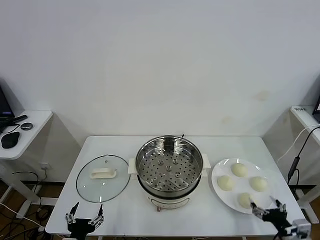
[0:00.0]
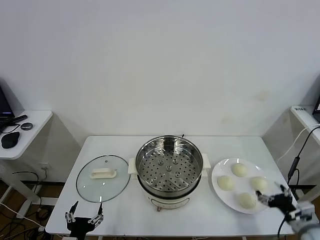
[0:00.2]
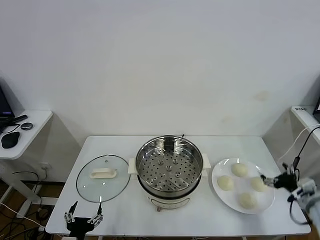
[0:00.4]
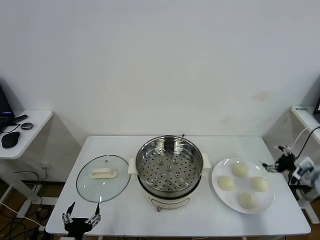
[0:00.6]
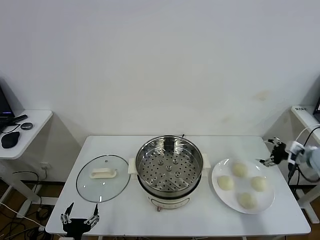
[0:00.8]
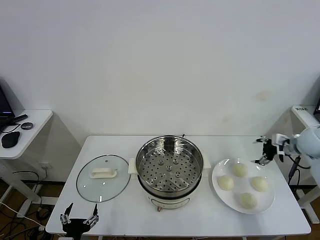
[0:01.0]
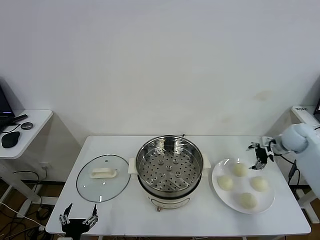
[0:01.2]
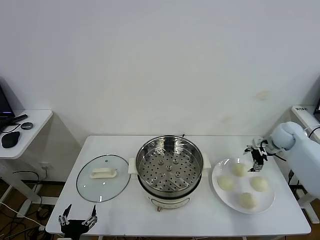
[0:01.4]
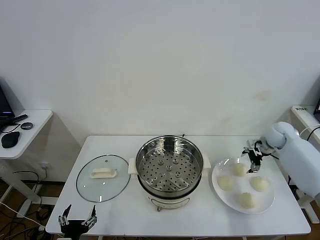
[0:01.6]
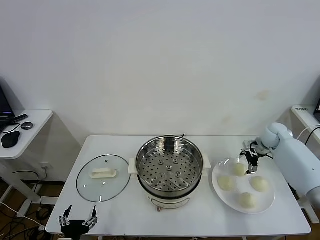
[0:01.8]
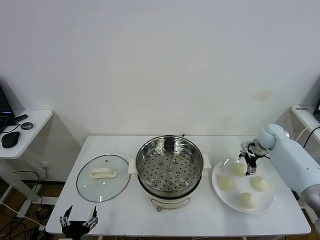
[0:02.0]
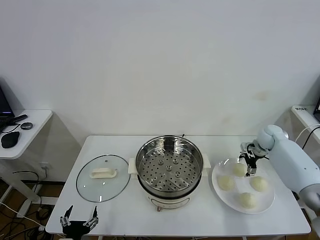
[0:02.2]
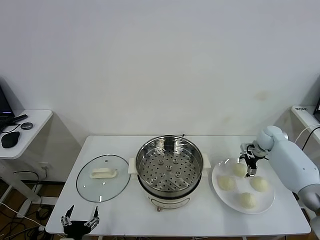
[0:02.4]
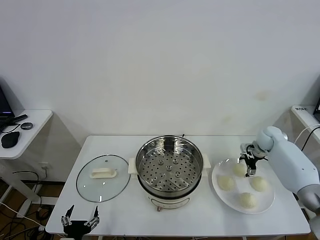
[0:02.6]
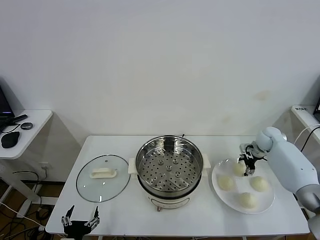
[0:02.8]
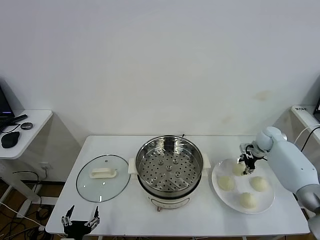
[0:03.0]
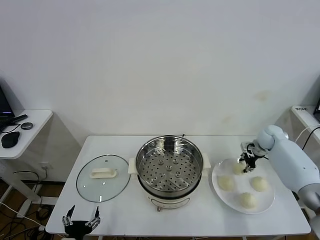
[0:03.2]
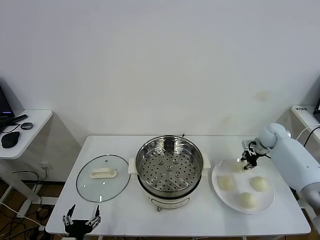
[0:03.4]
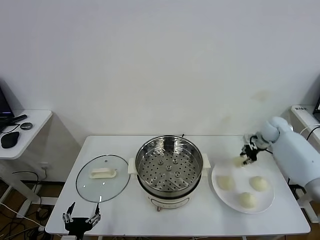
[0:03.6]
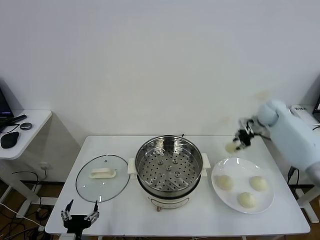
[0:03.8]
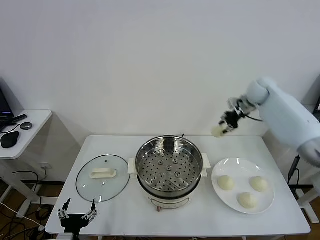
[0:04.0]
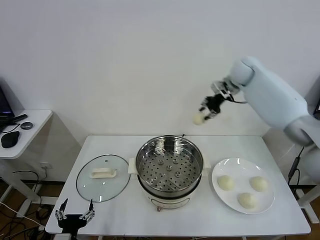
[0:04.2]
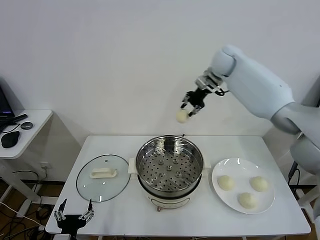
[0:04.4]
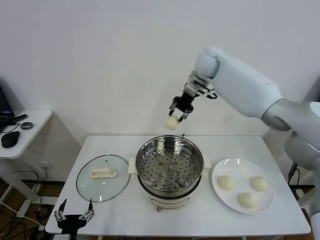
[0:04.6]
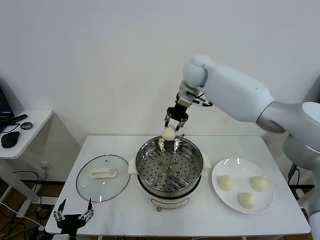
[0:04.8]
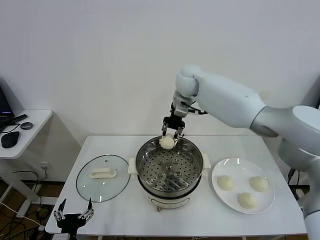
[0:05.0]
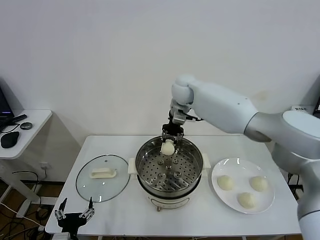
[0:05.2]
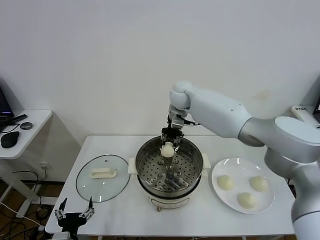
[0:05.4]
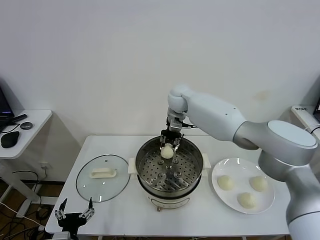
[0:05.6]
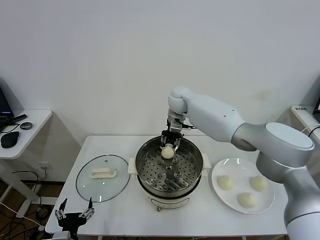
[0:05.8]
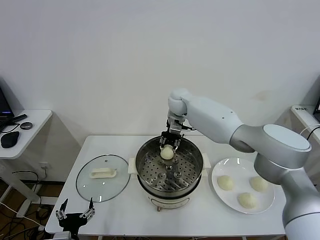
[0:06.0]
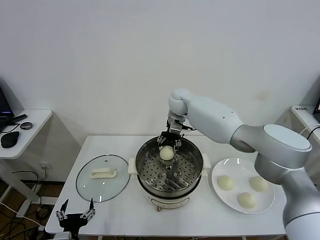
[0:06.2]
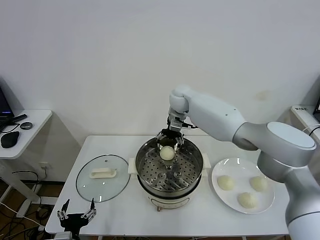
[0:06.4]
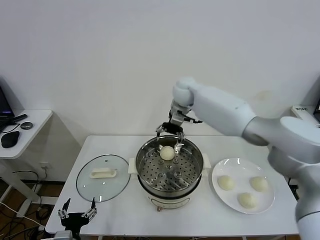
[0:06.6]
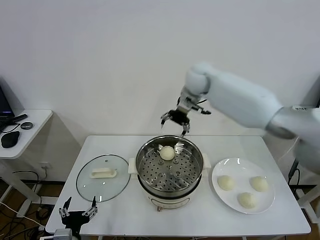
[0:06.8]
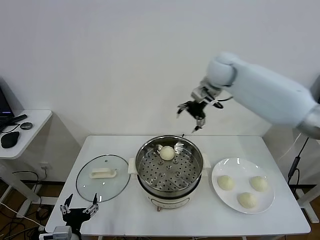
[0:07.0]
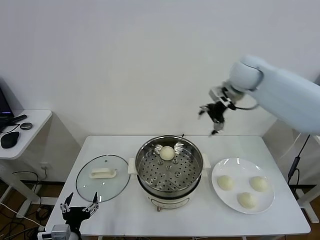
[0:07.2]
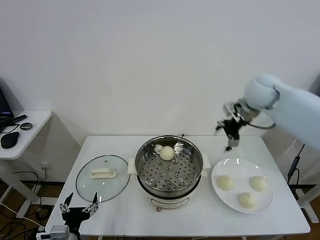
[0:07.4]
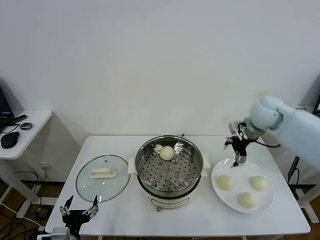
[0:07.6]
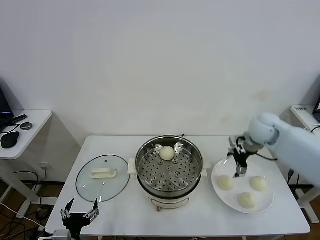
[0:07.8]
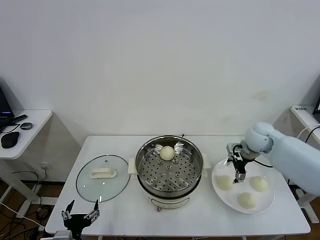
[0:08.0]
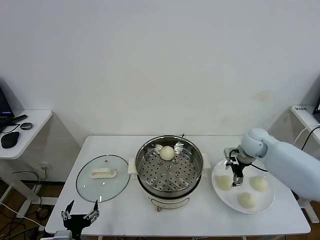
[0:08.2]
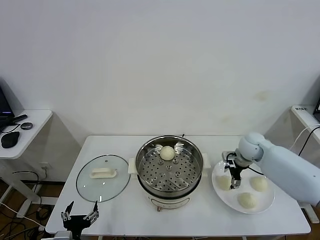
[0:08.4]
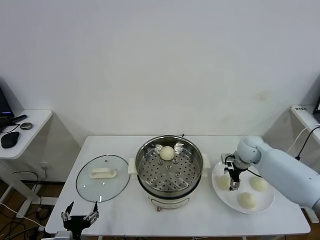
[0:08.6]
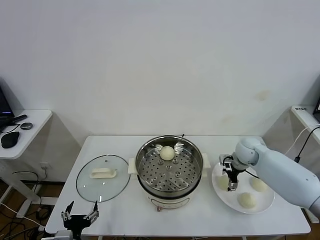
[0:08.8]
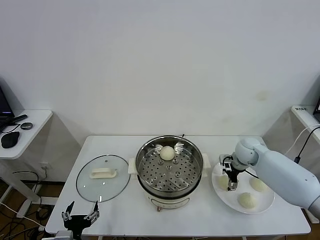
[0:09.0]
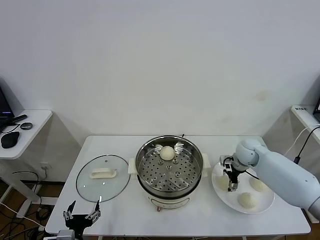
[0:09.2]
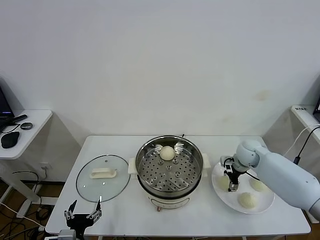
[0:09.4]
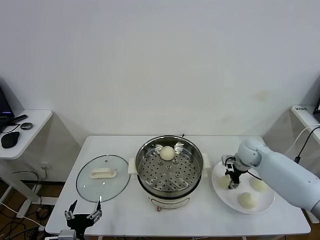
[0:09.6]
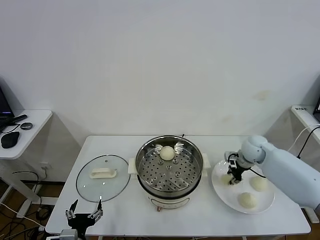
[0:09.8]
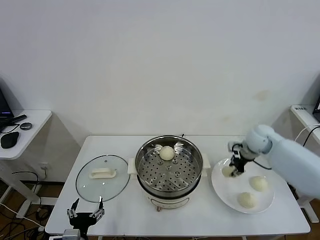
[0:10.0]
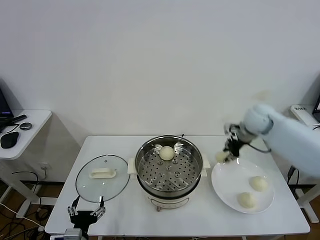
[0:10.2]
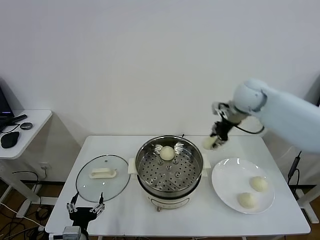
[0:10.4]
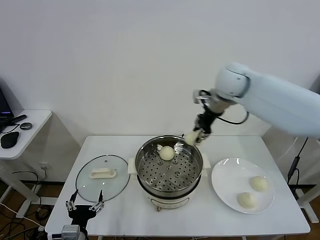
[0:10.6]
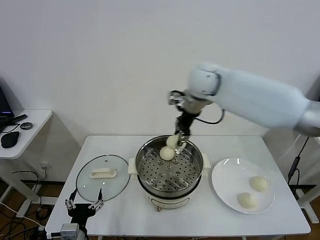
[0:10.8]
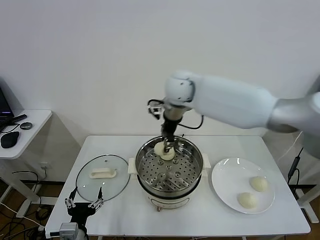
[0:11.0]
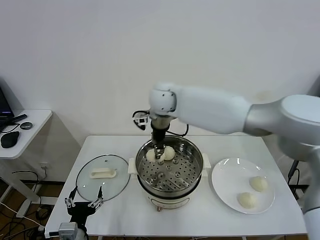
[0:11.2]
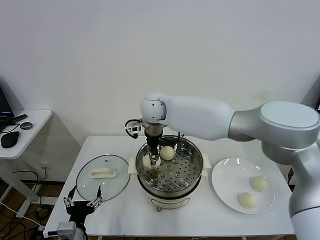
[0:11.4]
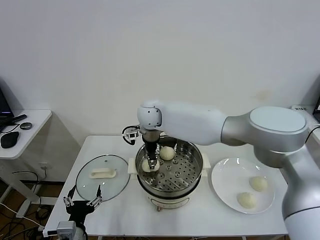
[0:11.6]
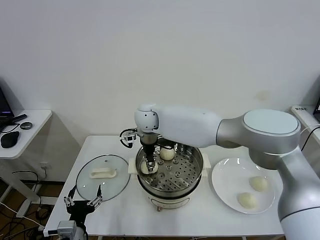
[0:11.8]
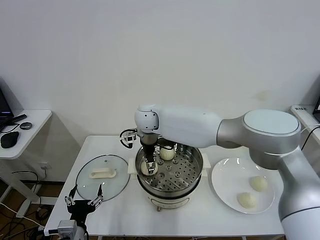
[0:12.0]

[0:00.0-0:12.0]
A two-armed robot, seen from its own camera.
Task of the whole recording: take steamed baozi put them in steamer.
Step, 0:00.0 to 0:02.8: Grasp the baozi in the plate with right gripper.
Step, 0:03.0 to 0:06.4: Place the baozi on the steamer with right gripper.
Step, 0:06.6 to 0:09.6: Grasp the baozi in the plate with right gripper.
0:01.6 to 0:03.0: The right gripper closes up.
0:03.0 to 0:04.4: The right gripper travels upward and to the left by approximately 35 cm, and closes its fingers.
0:04.4 to 0:06.0: The right gripper shifts approximately 20 cm downward and to the left.
0:06.0 to 0:07.6: The right gripper moves to the right and backward, about 30 cm, and opens up.
0:07.6 to 0:09.0: The right gripper is displaced downward by roughly 15 cm.
0:09.0 to 0:10.4: The right gripper heads upward, covering about 25 cm, and closes its fingers.
0:10.4 to 0:12.0: The right gripper shifts about 30 cm to the left, and opens.

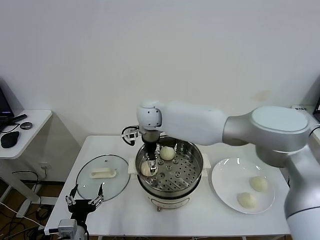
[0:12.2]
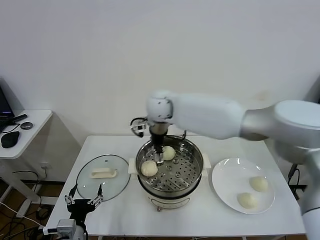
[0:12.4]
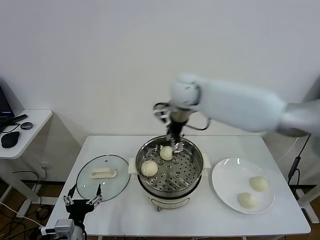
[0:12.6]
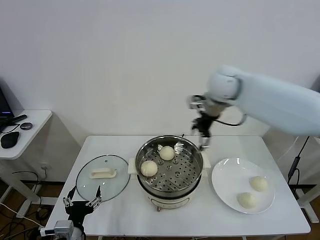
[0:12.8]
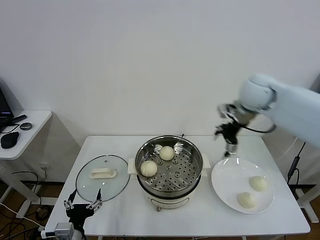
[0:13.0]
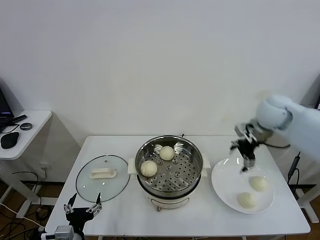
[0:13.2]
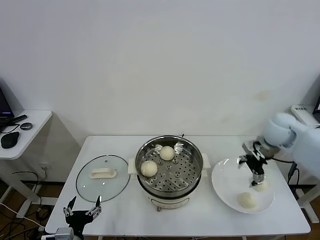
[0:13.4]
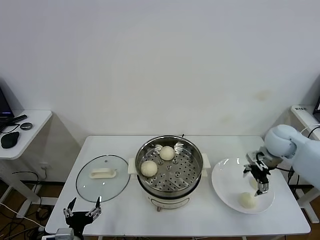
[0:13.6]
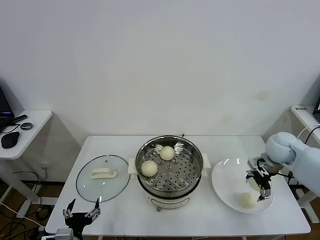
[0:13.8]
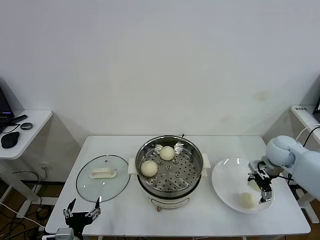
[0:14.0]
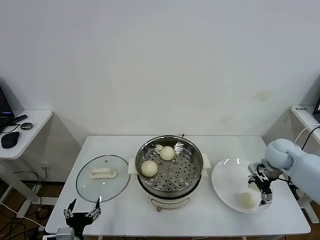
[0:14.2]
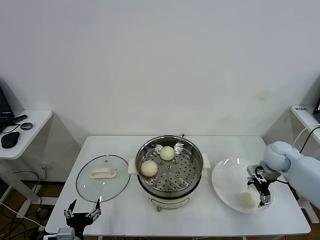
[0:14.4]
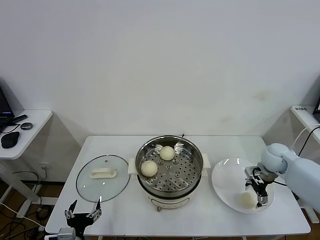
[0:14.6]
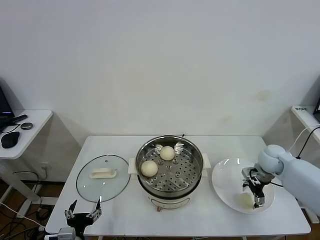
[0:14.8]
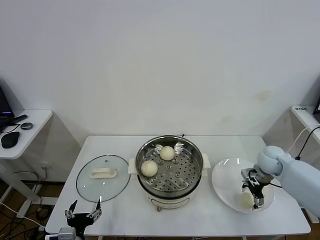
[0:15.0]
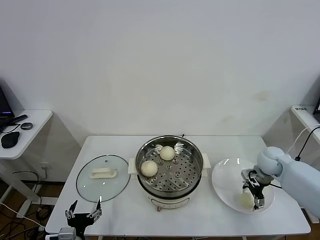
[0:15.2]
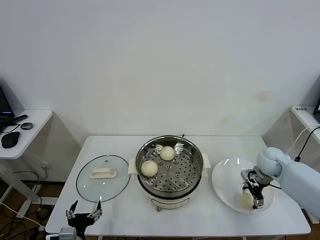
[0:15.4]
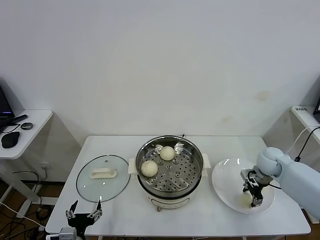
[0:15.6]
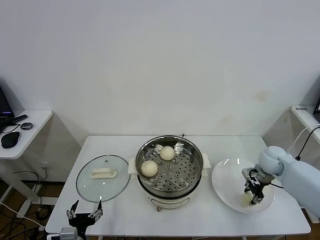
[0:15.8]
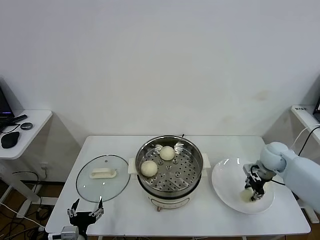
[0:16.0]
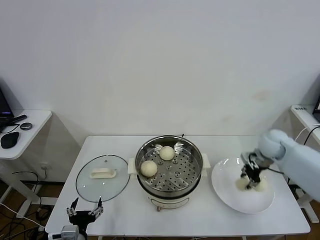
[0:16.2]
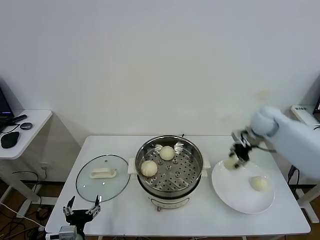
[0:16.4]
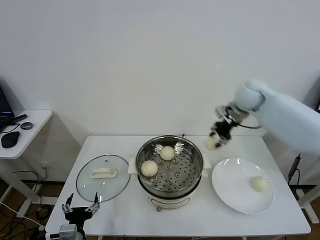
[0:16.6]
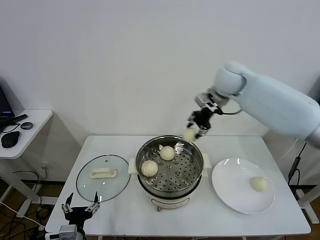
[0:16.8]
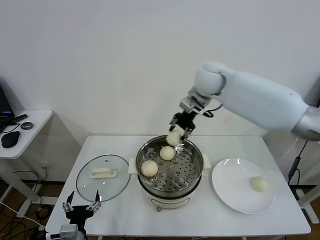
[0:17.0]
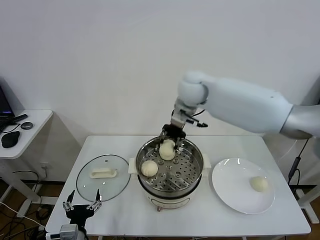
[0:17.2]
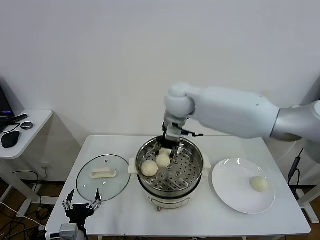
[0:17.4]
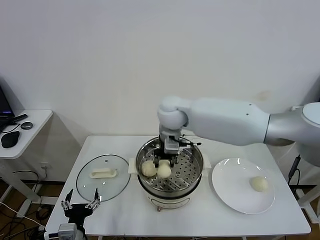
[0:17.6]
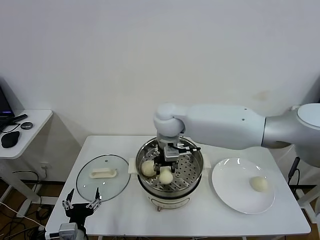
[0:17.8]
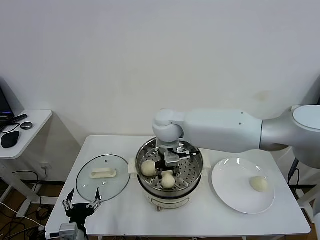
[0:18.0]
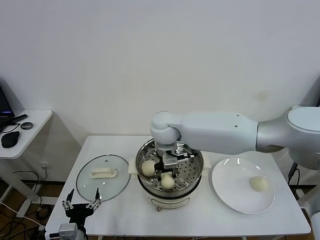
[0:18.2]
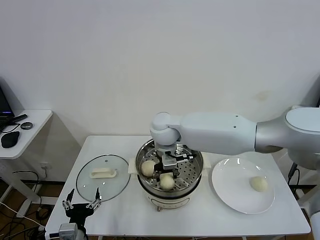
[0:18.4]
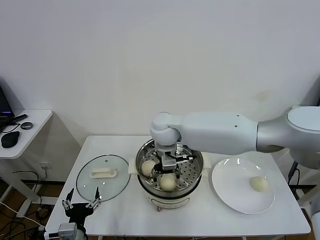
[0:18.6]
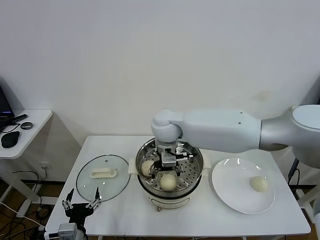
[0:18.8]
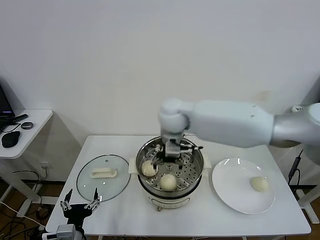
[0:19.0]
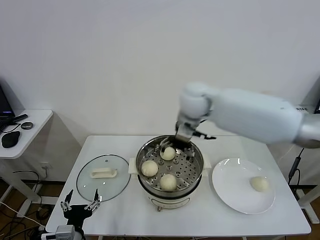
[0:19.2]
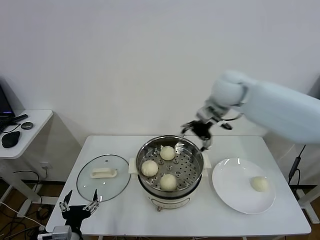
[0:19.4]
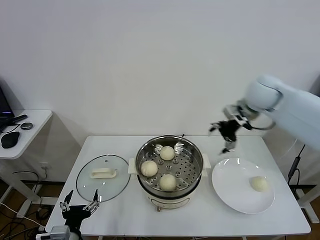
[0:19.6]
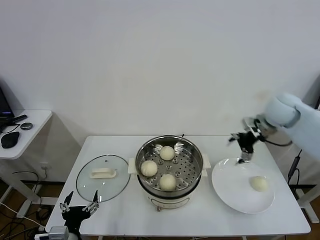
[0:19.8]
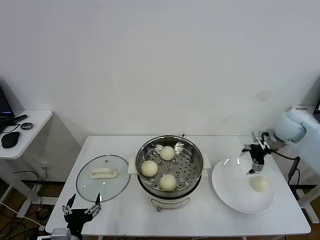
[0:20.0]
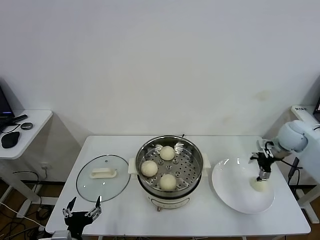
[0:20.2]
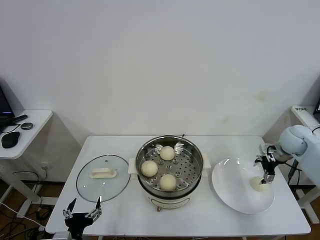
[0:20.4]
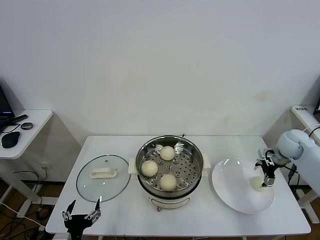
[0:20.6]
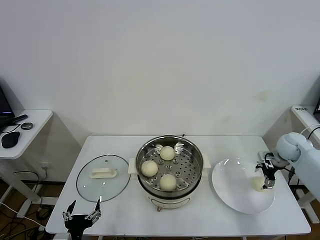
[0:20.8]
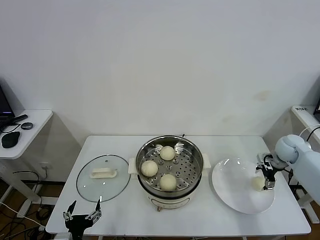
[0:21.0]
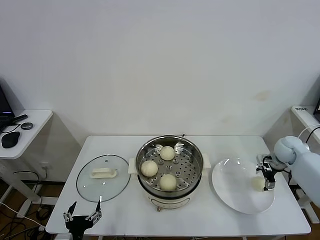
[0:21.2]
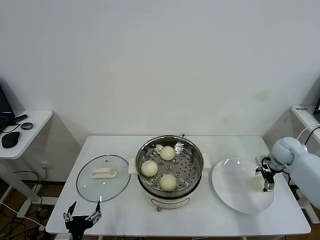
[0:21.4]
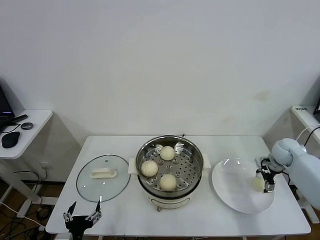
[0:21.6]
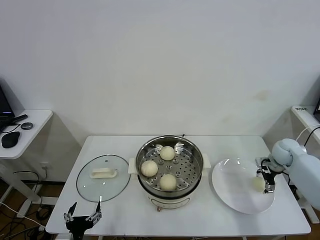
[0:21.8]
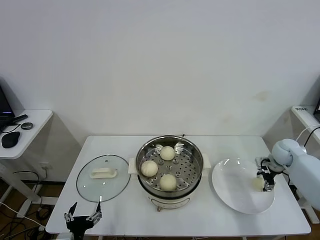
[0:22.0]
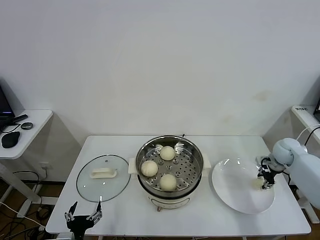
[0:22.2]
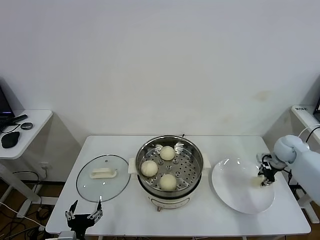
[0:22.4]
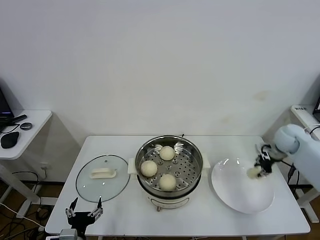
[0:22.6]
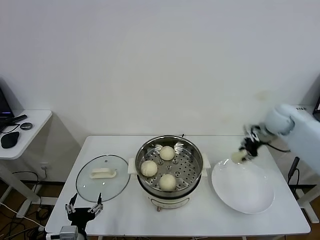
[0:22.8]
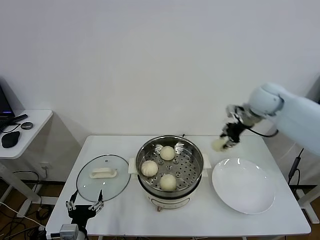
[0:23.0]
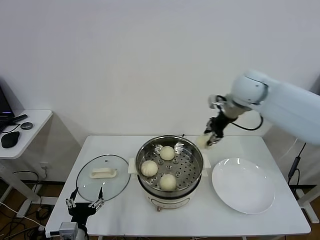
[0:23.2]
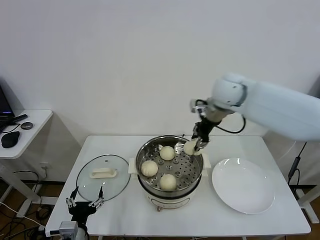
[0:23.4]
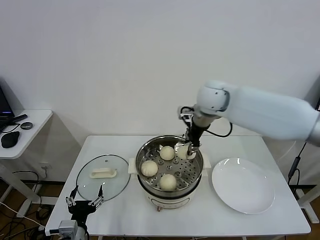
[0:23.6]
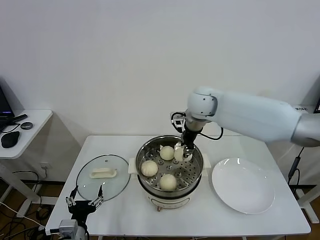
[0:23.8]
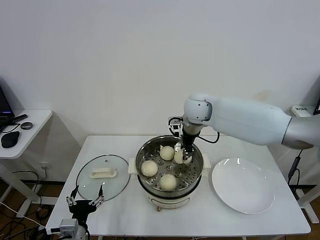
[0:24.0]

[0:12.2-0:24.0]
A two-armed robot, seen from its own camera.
Task of the whole recording: take steamed baozi put them in steamer.
Step, 0:12.4 to 0:15.6: Grasp the baozi in the plate with right gripper.
Step, 0:15.8 to 0:18.6: Place the baozi on the steamer with right gripper.
Step, 0:19.0 to 0:22.0: Grasp the baozi in the plate with right gripper.
0:12.2 to 0:13.6: The right gripper heads to the right, covering some 40 cm.
0:13.6 to 0:15.2: The right gripper travels downward by roughly 10 cm.
0:15.2 to 0:16.6: The right gripper heads upward, to the left and forward, covering roughly 25 cm, and closes.
0:16.6 to 0:18.2: The right gripper moves to the left, about 25 cm.
0:18.2 to 0:19.6: The right gripper heads to the right, covering roughly 25 cm, and opens its fingers.
0:19.6 to 0:21.0: The right gripper heads downward and to the right, covering about 30 cm.
0:21.0 to 0:22.6: The right gripper closes up.
0:22.6 to 0:24.0: The right gripper heads to the left, covering roughly 35 cm.
